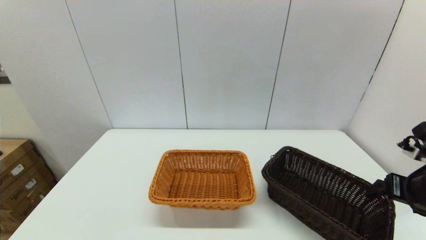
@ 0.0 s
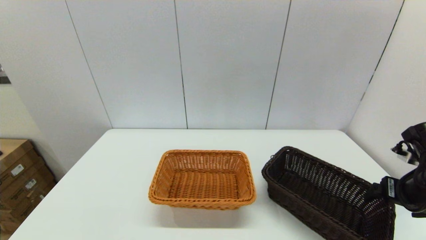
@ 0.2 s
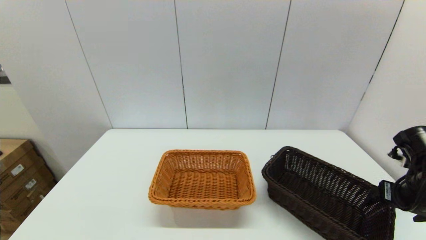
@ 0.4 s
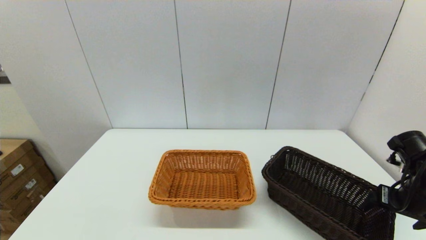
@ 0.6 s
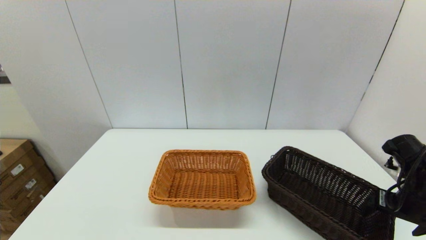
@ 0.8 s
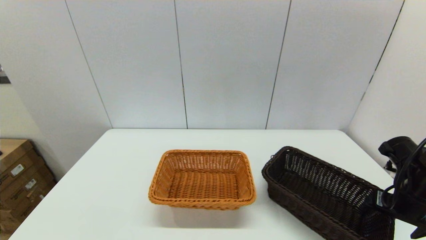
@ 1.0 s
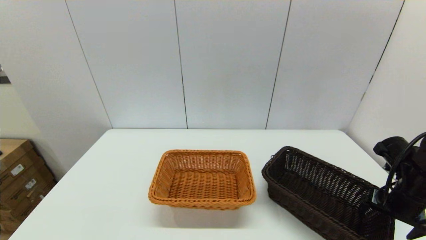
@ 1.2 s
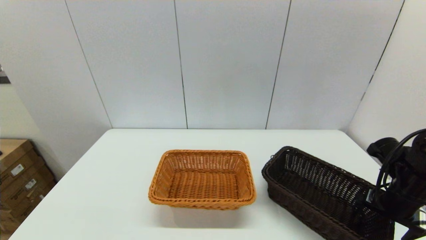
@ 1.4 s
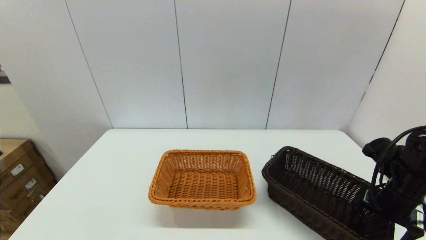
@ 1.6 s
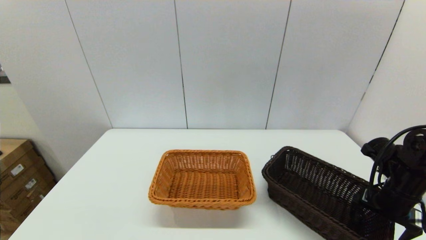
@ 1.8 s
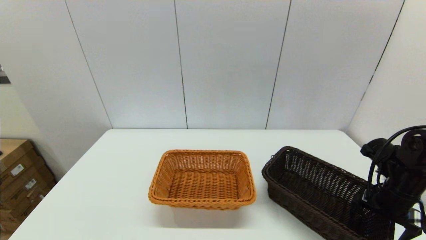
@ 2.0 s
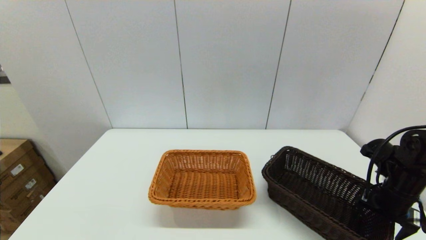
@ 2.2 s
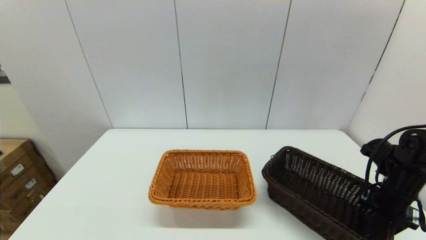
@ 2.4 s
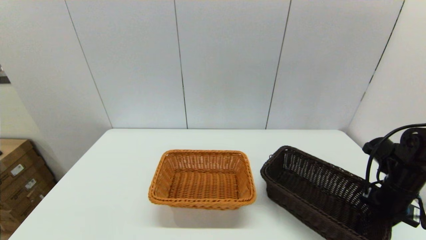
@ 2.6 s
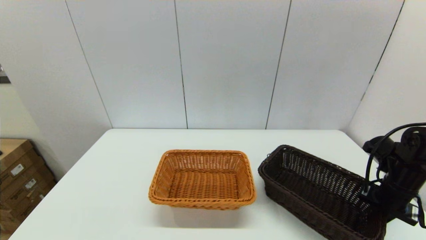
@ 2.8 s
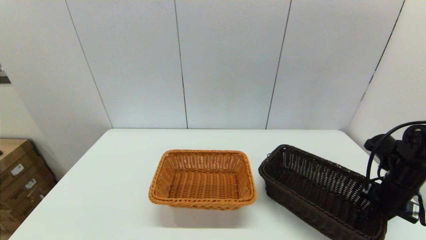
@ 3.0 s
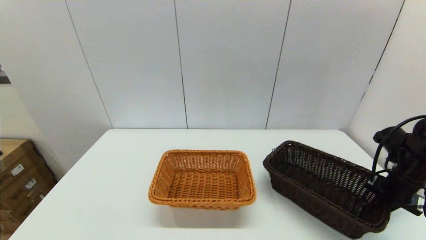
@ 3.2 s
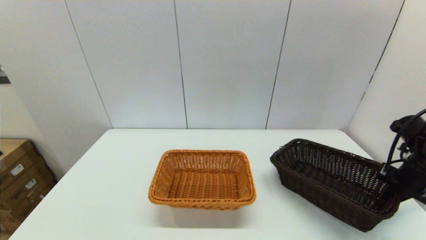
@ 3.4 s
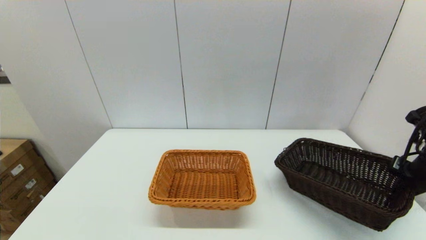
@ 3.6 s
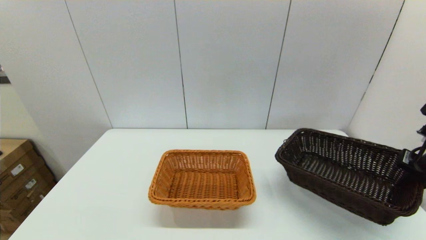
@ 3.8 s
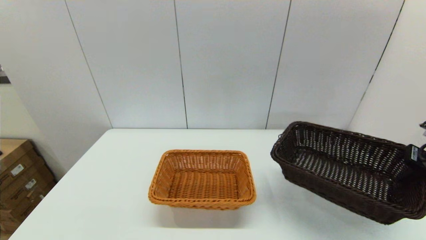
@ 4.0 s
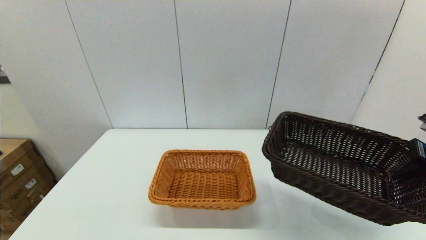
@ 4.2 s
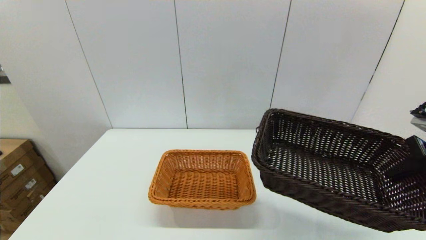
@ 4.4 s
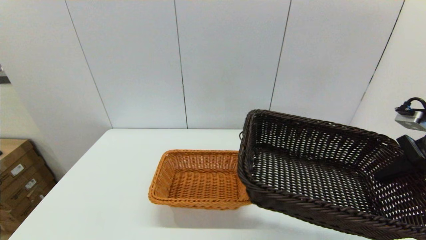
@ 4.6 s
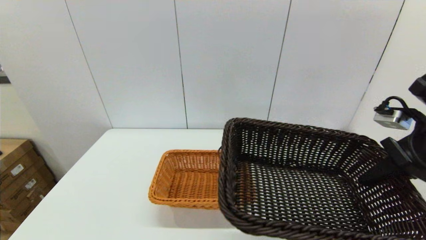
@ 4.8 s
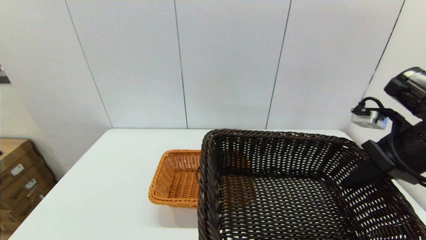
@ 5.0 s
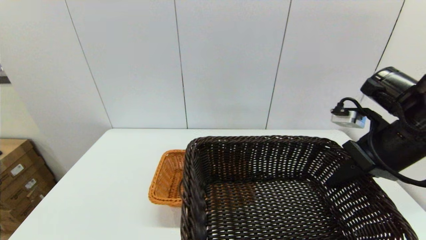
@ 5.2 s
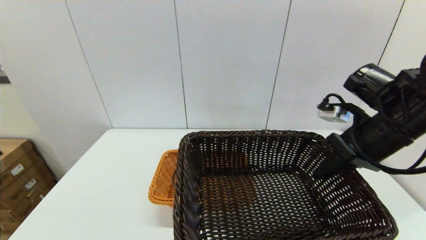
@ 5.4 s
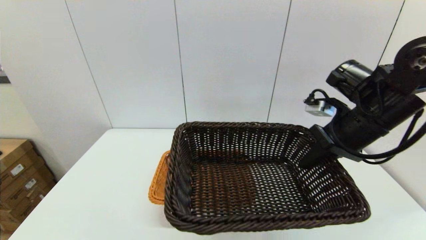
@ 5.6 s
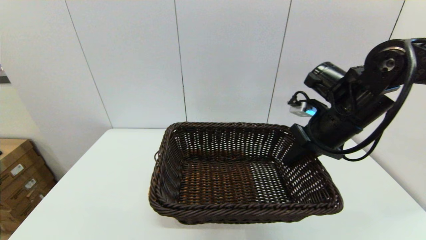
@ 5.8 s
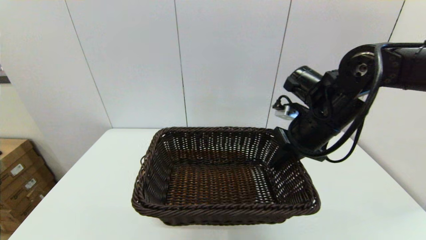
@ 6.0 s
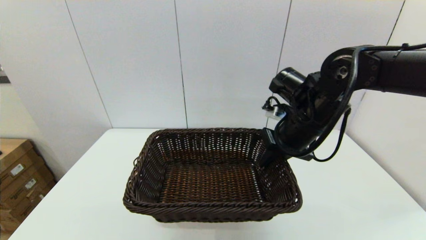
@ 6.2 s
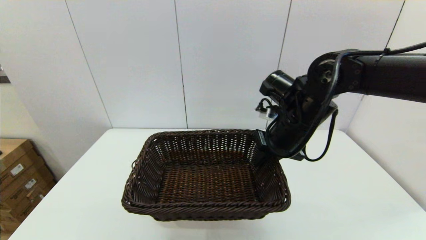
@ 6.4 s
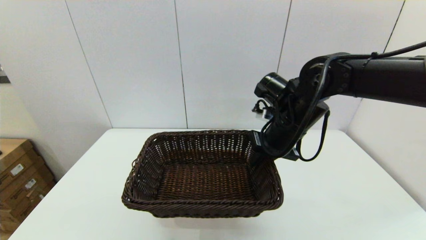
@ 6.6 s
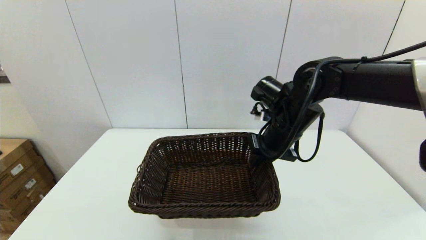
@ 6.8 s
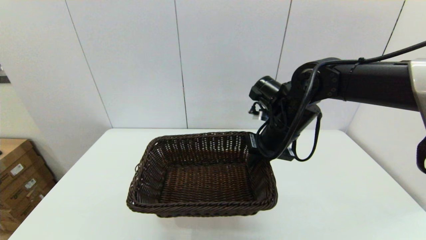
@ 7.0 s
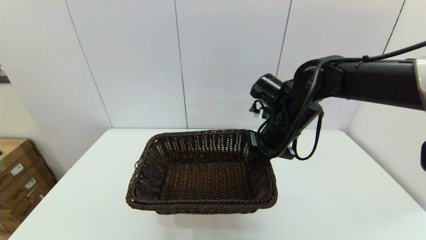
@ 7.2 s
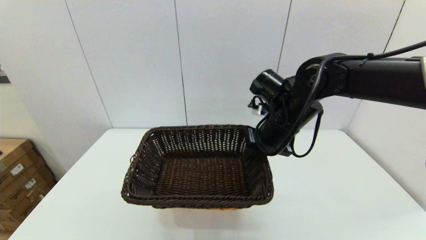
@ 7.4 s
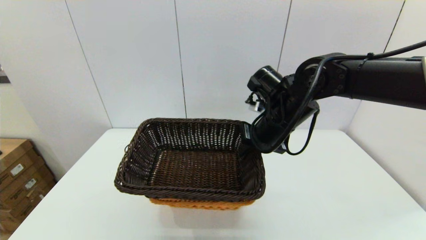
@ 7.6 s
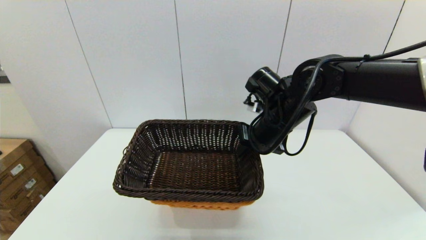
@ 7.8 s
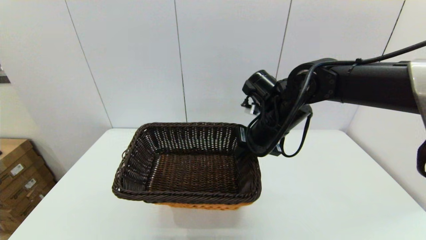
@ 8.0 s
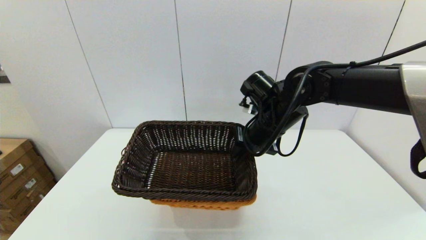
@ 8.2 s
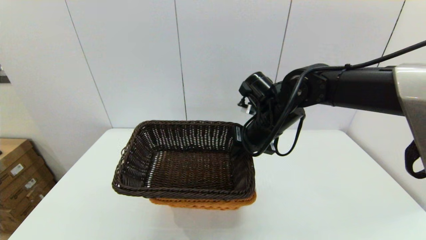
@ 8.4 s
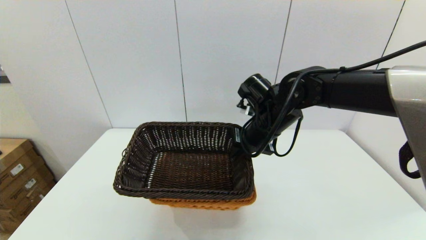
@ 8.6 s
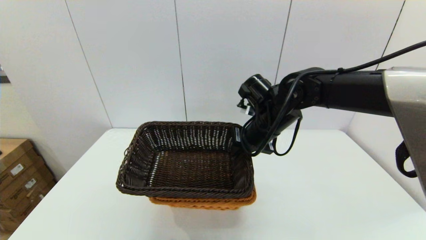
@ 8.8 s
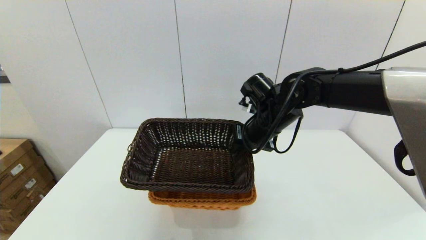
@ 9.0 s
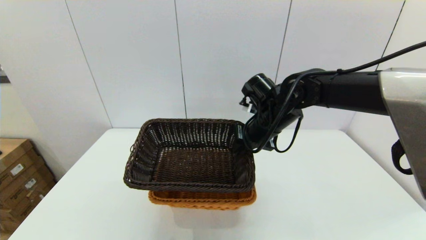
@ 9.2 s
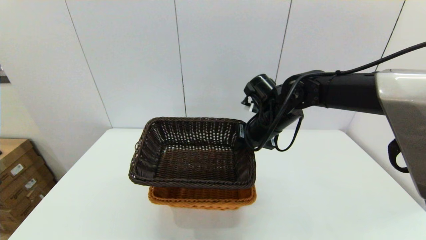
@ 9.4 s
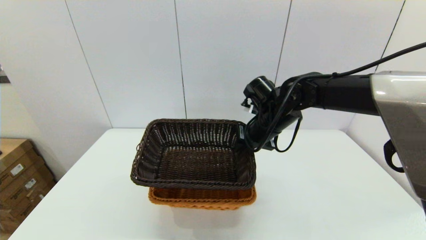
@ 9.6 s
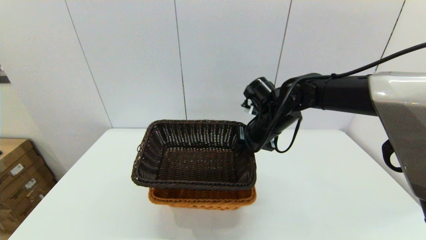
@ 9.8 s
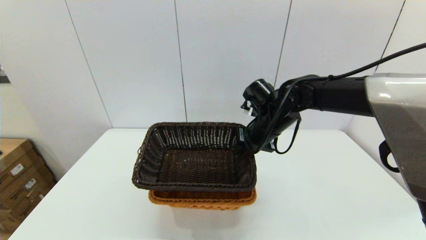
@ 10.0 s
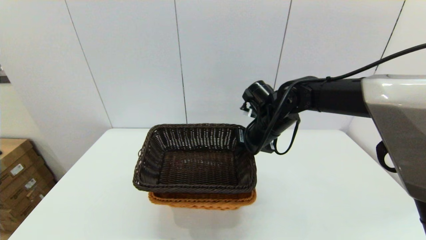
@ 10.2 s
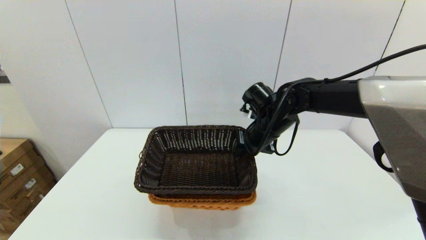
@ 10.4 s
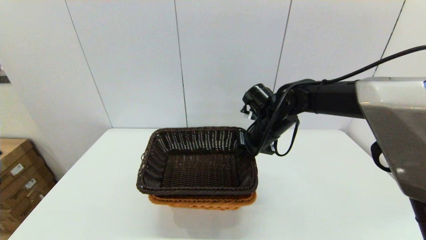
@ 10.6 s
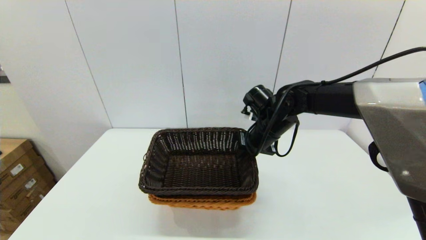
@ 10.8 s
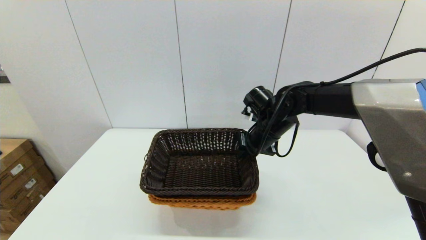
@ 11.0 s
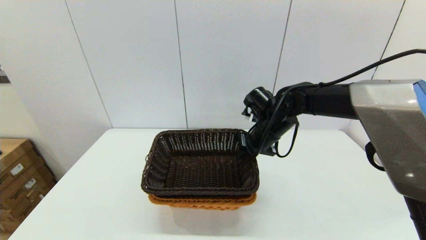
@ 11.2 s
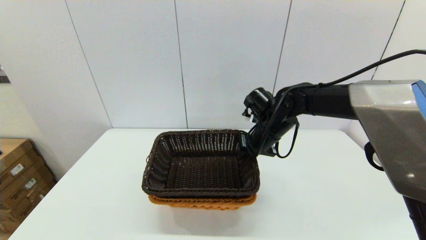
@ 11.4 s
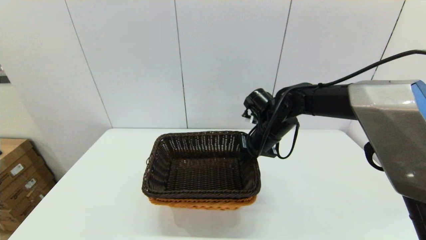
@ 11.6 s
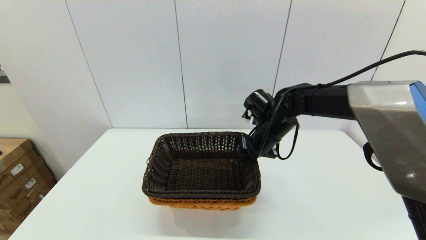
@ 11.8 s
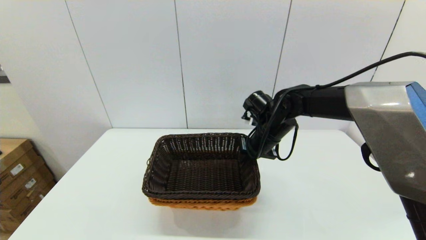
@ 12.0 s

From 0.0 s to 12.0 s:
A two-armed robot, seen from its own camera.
Task of the whole recording: stack a basket on top of another basket.
Step, from 0.0 s to 3.2 s: Grasp the dark basket with the right gripper.
From 0.0 s to 1.6 s: The right gripper travels downward by some 5 cm.
From 1.6 s to 3.0 s: The right gripper closes up.
From 3.0 s to 4.4 s: The right gripper heads upward and backward, covering about 15 cm.
From 4.4 s to 6.0 s: The right gripper heads to the left and forward, covering about 20 cm.
From 6.0 s to 7.6 s: The right gripper shifts approximately 5 cm to the left.
From 7.6 s to 9.0 s: The grippers move only a little.
From 9.0 s to 12.0 s: The grippers make only small movements.

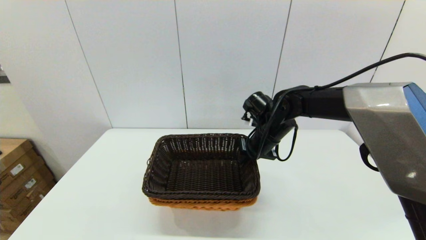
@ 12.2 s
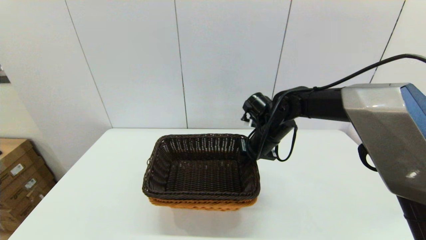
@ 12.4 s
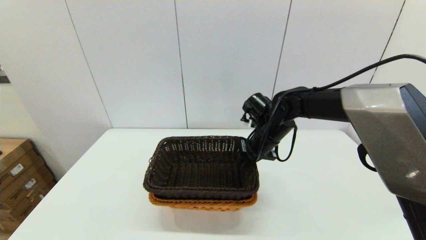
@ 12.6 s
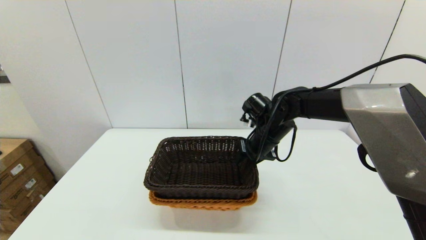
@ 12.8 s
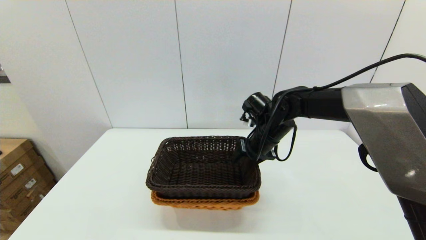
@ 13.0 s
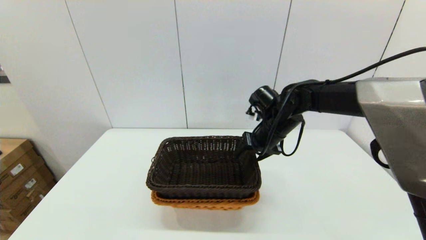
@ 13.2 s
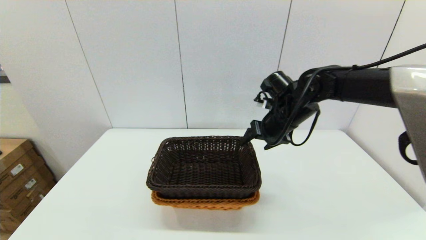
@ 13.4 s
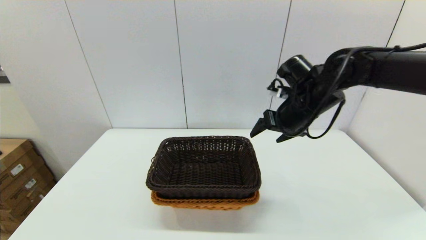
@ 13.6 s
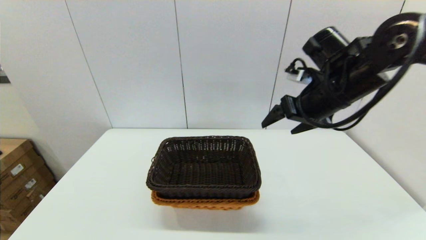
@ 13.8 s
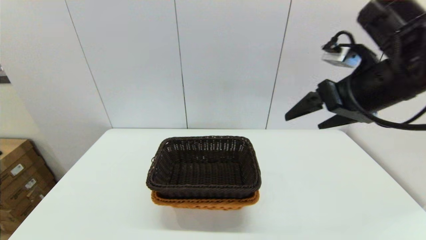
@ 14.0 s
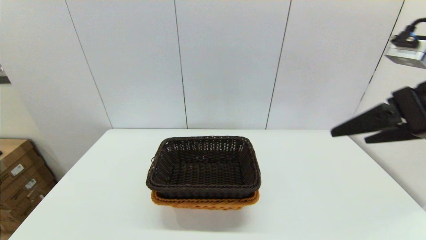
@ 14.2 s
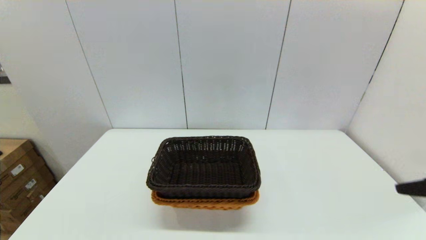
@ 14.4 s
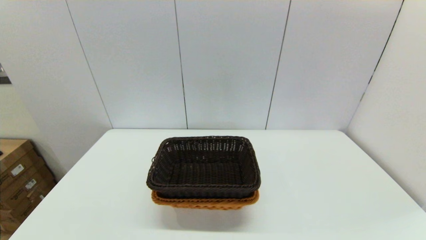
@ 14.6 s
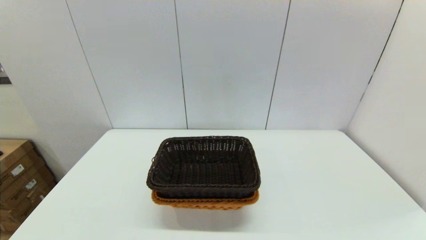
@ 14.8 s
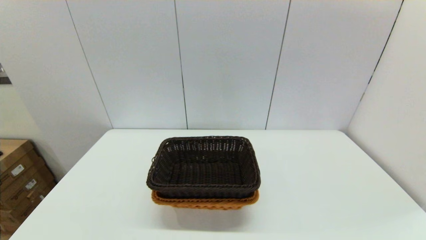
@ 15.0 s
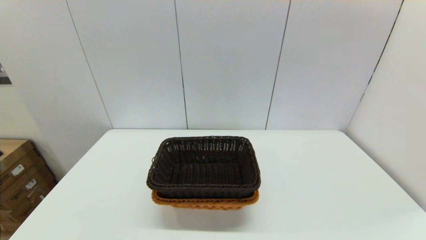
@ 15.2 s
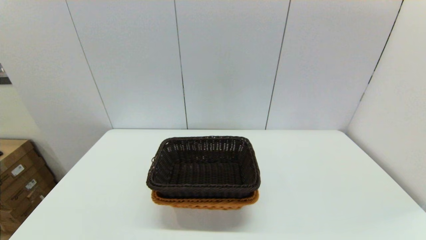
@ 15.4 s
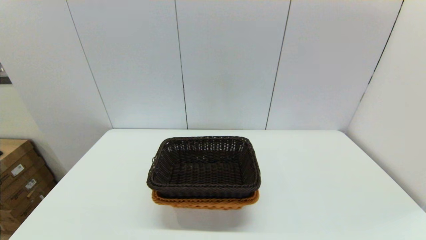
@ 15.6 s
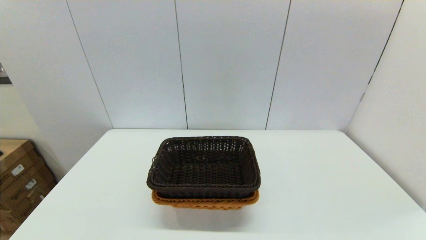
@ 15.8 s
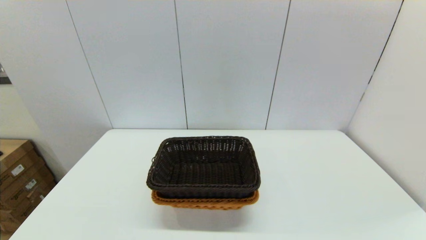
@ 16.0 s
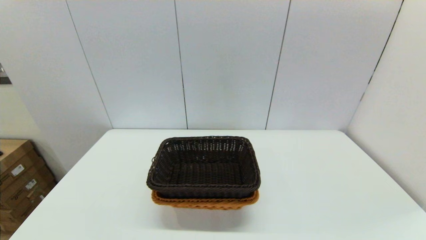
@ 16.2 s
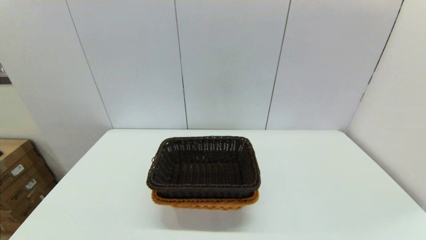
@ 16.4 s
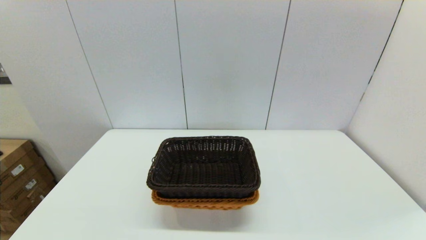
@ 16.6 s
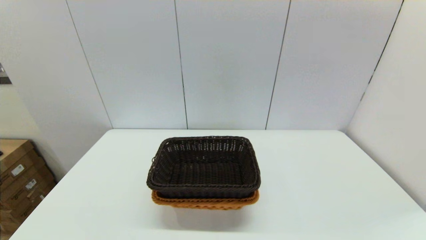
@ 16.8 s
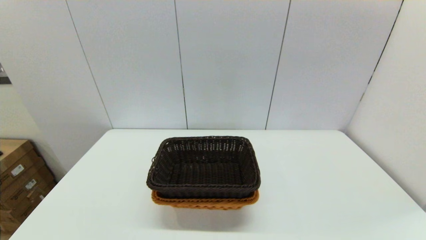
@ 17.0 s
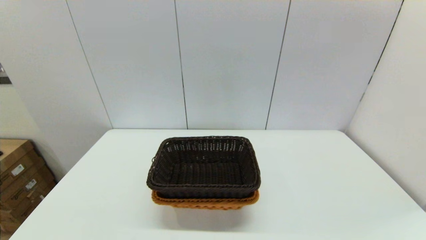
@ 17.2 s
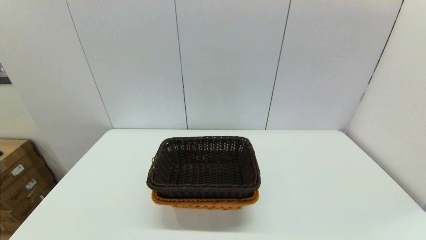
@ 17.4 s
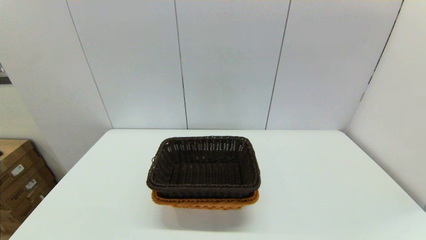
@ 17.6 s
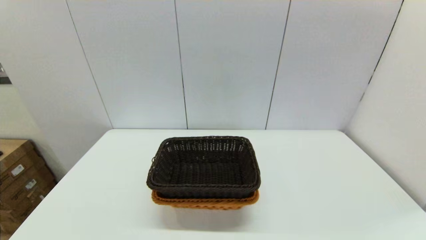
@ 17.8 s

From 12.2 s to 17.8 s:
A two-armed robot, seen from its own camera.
Task of the whole recording: stack a basket on top of another basket.
From 12.2 s to 13.6 s: The right gripper is displaced upward and to the right by about 10 cm, and opens its fingers.
From 13.6 s to 15.0 s: The right gripper shifts approximately 40 cm backward.
